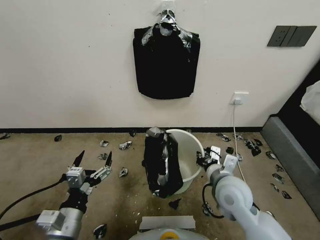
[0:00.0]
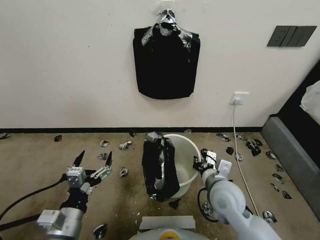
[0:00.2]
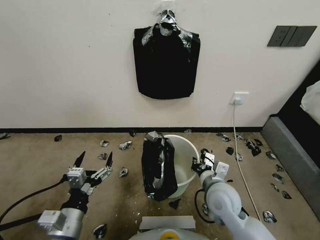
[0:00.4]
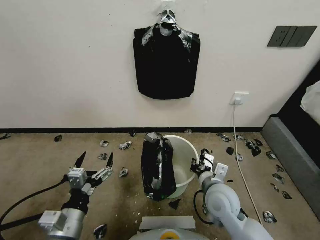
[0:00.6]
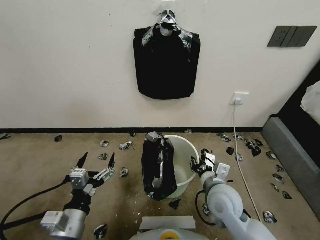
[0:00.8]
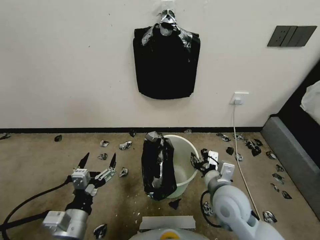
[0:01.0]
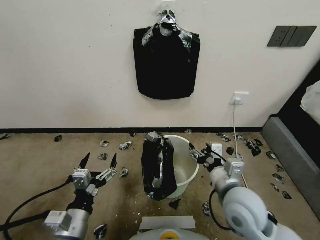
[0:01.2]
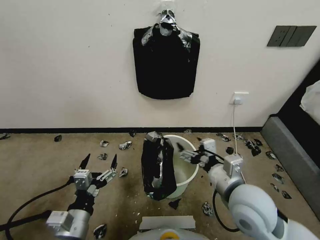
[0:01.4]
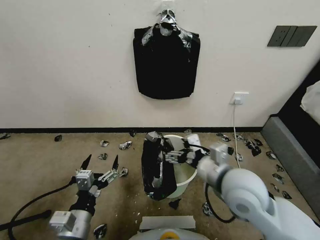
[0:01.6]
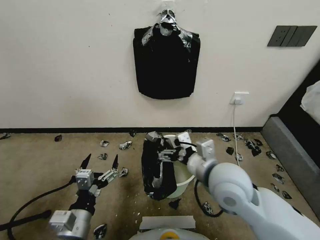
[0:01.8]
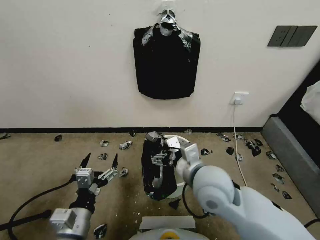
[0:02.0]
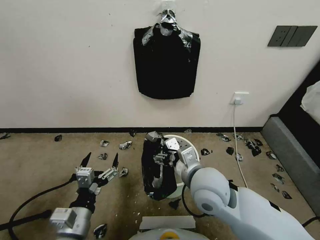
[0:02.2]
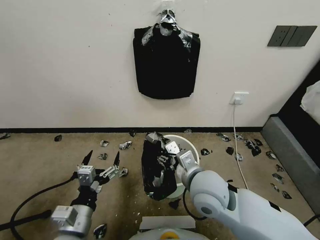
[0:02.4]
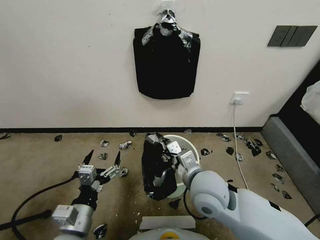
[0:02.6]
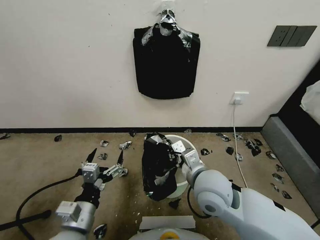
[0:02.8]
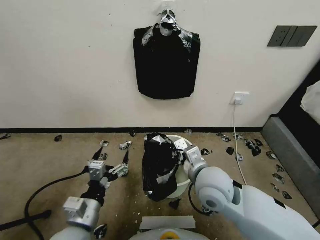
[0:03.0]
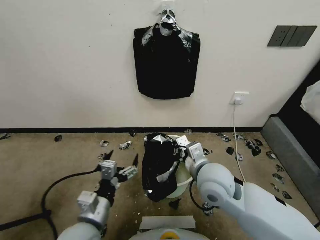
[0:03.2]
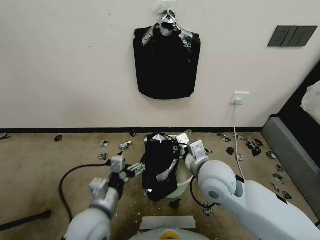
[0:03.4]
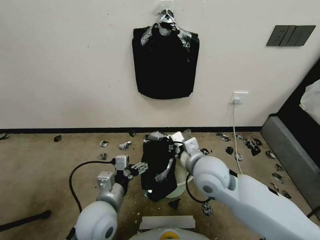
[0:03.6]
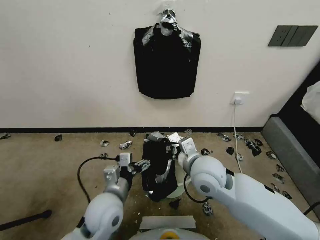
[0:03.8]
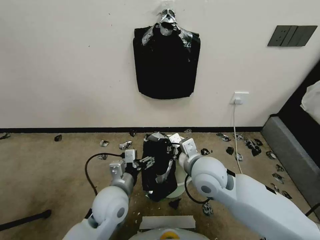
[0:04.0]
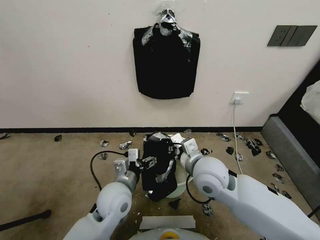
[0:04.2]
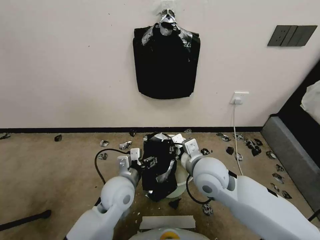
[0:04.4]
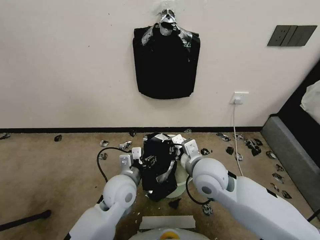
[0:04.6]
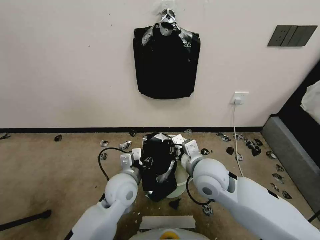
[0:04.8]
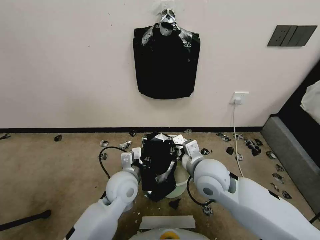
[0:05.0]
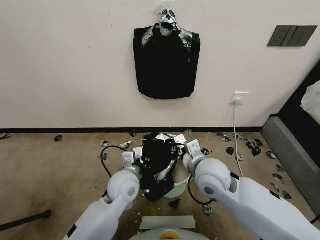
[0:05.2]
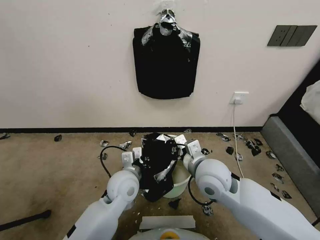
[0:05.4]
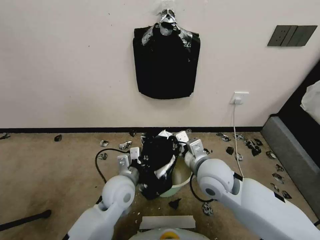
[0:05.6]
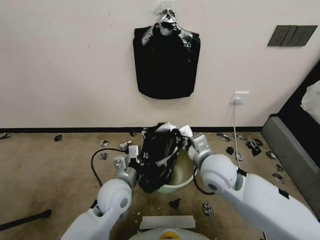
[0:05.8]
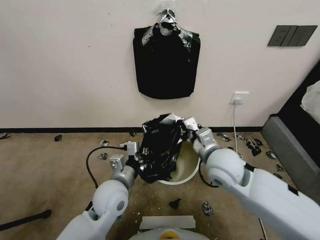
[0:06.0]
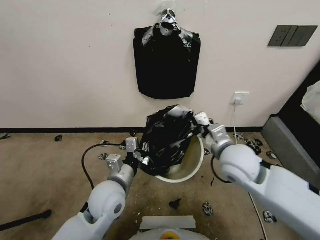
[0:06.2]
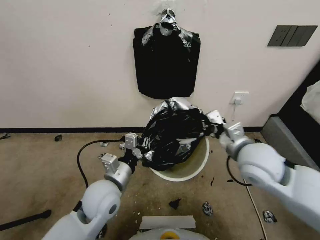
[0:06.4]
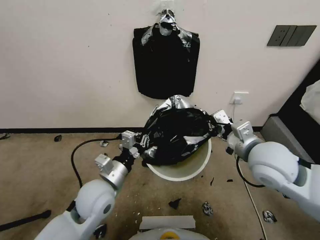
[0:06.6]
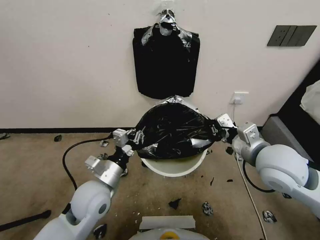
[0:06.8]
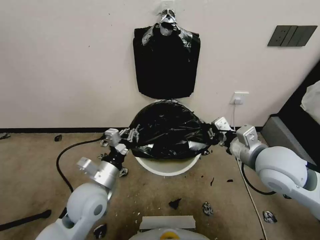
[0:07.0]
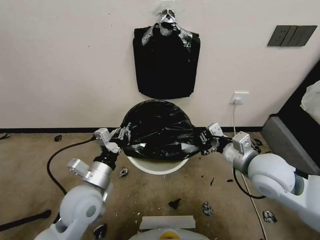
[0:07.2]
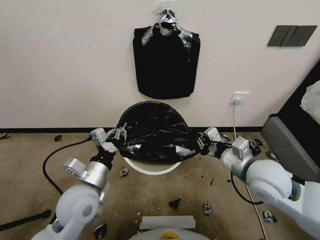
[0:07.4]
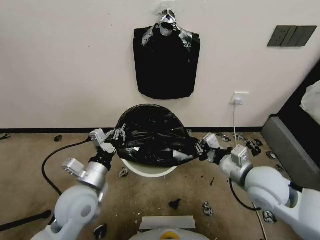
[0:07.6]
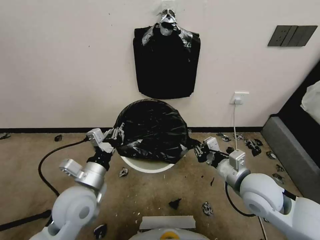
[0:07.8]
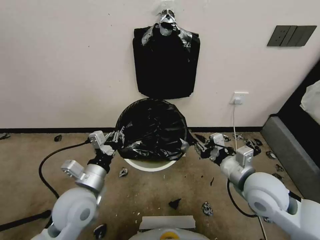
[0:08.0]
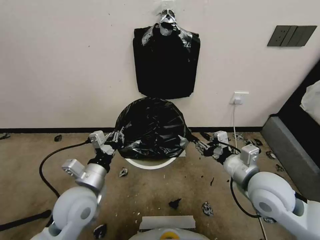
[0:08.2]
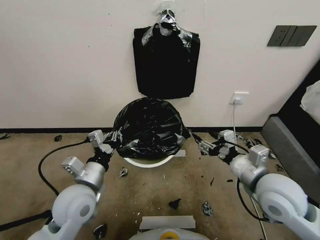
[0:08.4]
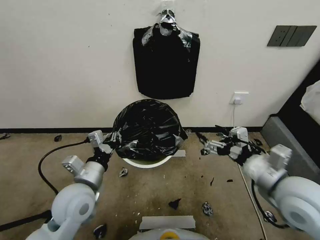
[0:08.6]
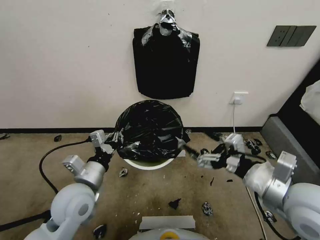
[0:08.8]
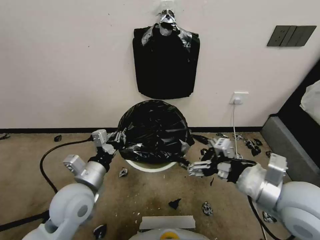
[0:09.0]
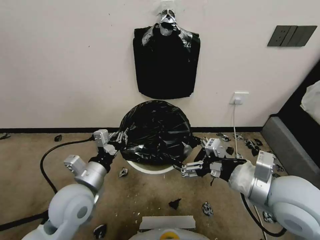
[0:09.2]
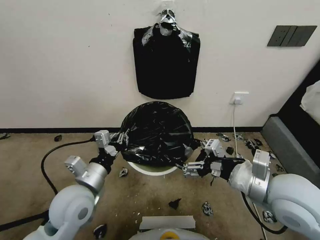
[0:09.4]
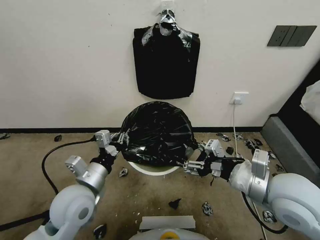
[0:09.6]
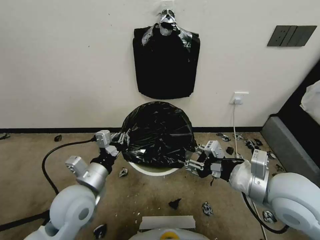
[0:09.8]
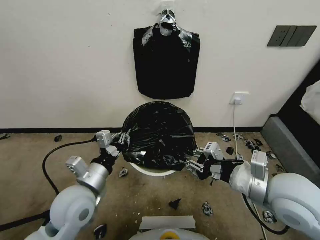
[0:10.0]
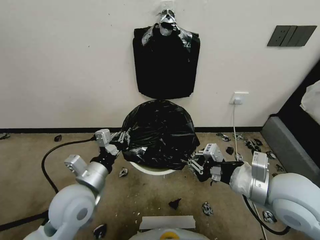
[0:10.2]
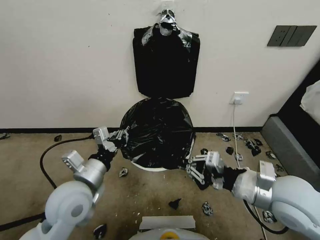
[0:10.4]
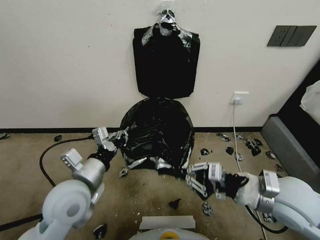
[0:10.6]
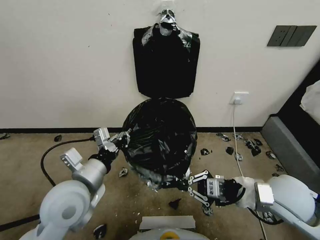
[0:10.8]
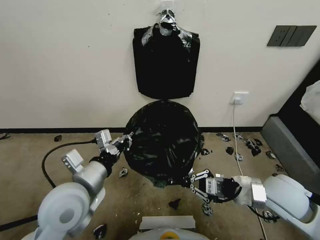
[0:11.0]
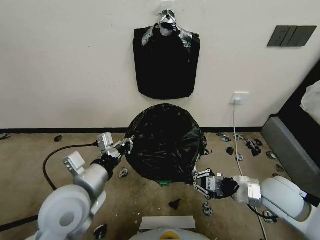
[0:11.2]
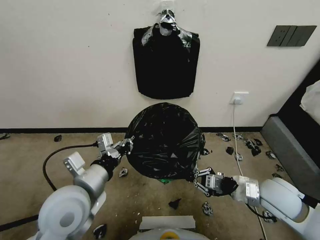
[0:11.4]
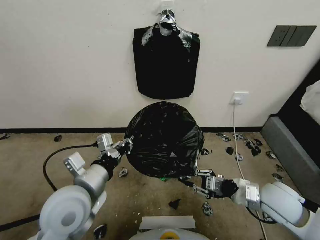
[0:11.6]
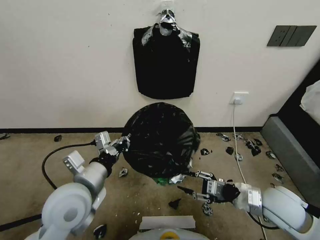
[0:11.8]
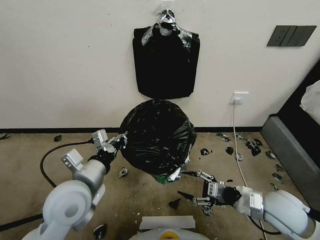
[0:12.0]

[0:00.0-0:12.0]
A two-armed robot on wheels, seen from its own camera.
Task of the whole recording: Place a trash bag onto the trash bin.
0:00.0 to 0:01.6: The right gripper moves upward, about 10 cm, and opens.
0:01.6 to 0:03.0: The right gripper heads to the left, covering roughly 5 cm, and closes.
0:03.0 to 0:04.4: The left gripper shifts approximately 15 cm forward and to the right.
0:04.4 to 0:06.0: The left gripper closes.
0:06.0 to 0:07.6: The right gripper goes roughly 10 cm to the right. The left gripper heads to the left, covering about 5 cm.
0:07.6 to 0:09.0: The right gripper moves backward and upward, roughly 10 cm, and opens its fingers.
0:09.0 to 0:10.4: The right gripper closes up.
0:10.4 to 0:12.0: The right gripper shifts roughly 15 cm downward and to the right, and opens.

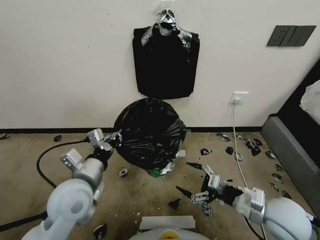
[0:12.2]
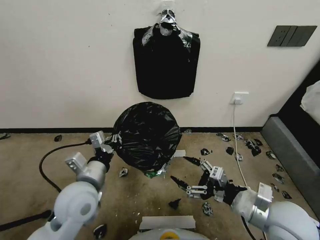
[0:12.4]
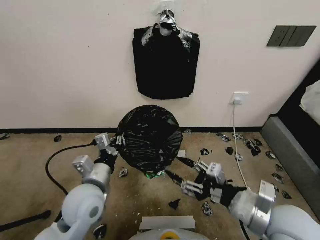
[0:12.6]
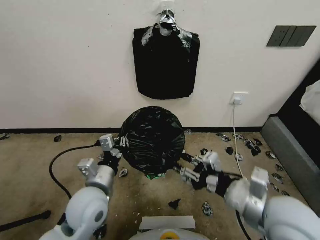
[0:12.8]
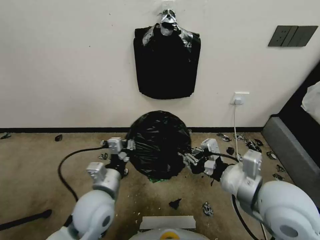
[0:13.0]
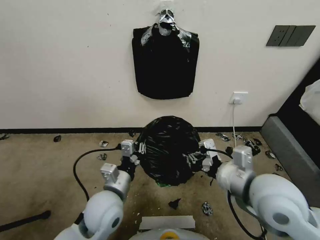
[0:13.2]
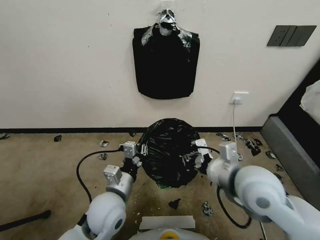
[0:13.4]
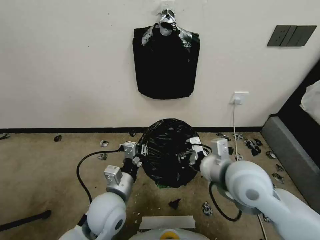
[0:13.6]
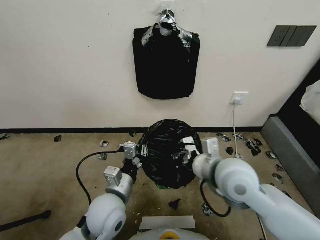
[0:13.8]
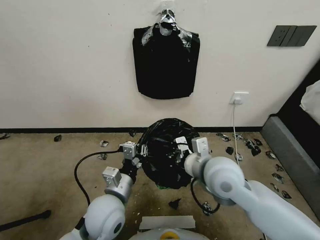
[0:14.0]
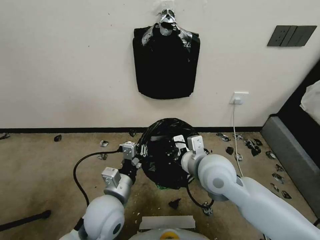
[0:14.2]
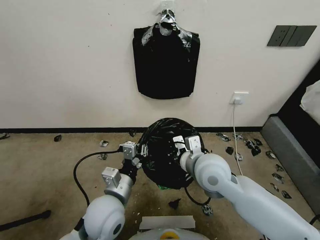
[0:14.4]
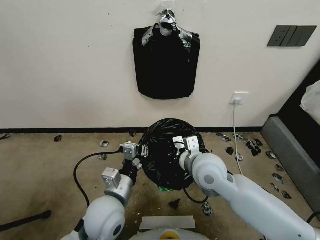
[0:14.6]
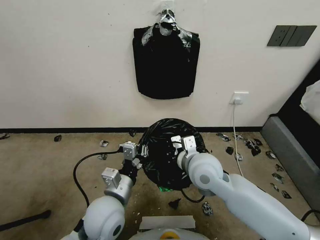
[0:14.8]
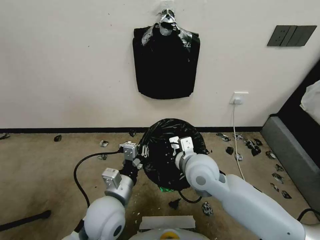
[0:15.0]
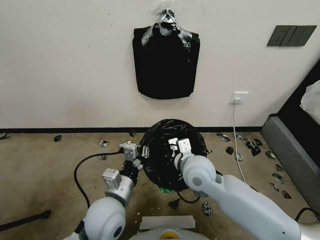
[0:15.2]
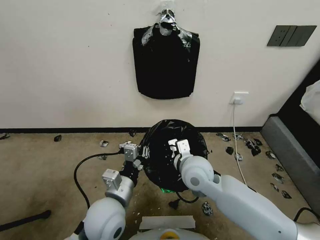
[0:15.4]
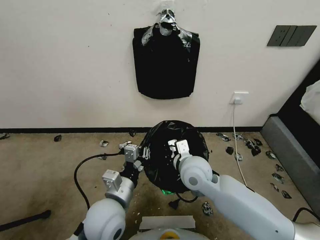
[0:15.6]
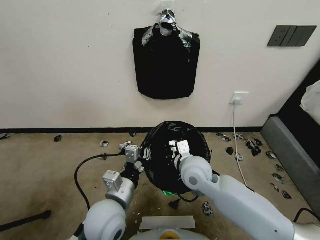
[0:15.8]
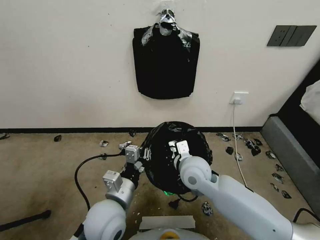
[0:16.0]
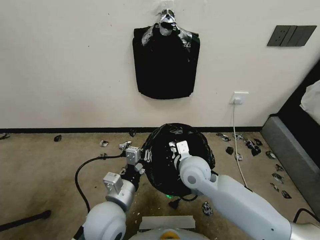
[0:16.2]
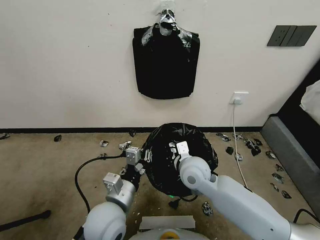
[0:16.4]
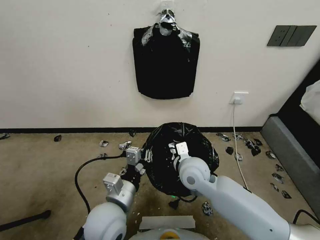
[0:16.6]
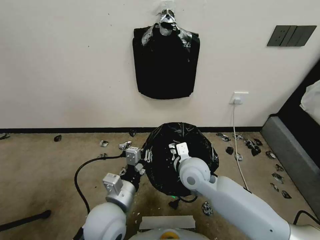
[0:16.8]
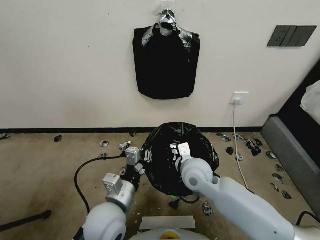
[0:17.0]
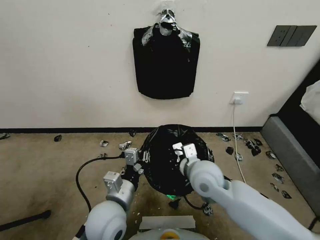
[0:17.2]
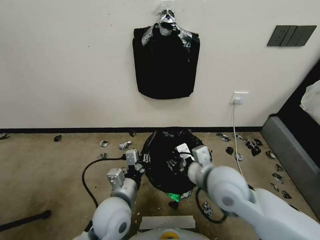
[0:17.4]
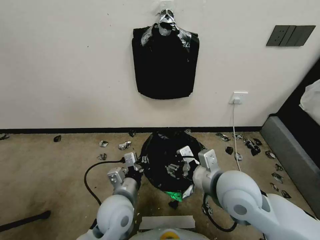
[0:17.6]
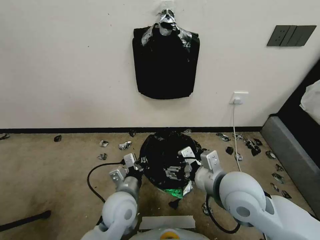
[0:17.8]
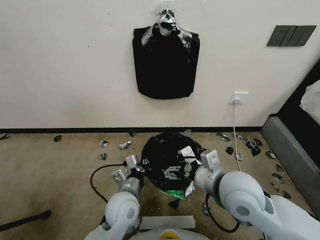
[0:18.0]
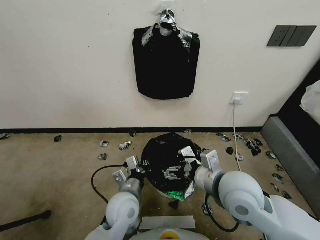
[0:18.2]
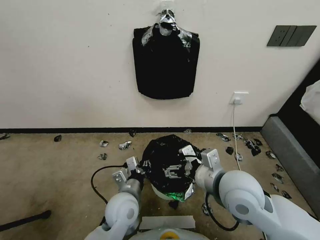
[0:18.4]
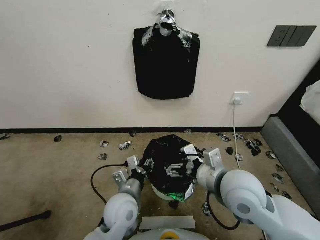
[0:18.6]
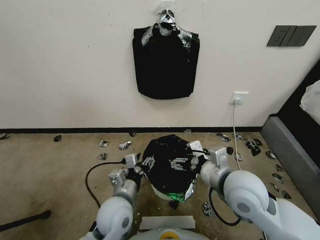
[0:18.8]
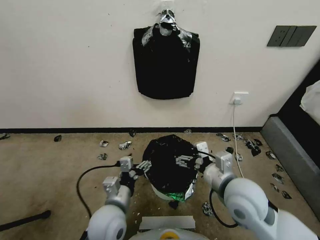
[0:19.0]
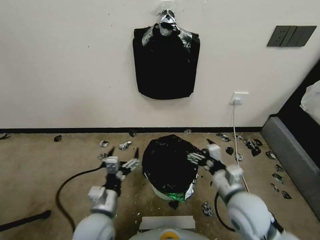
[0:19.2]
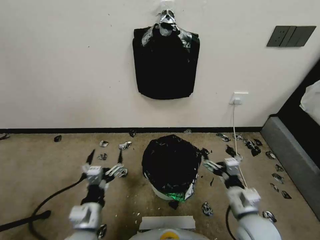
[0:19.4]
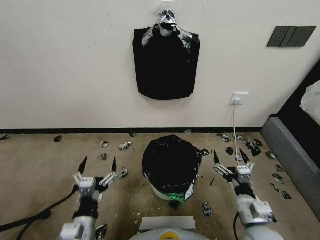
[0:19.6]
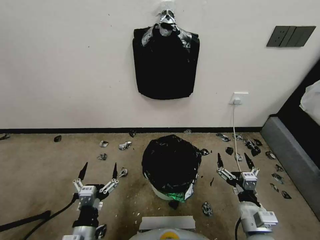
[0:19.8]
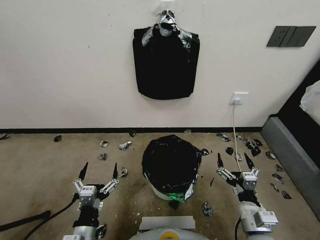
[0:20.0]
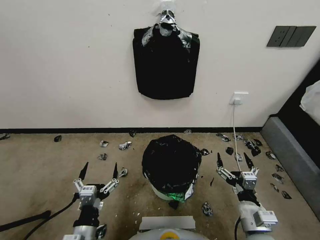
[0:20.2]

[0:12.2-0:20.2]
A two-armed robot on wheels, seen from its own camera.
Task of the whole recording: Place a trash bag onto the trash bin.
0:12.2 to 0:13.8: The right gripper moves upward and to the left, about 15 cm, and closes. The left gripper shifts roughly 10 cm downward and to the right.
0:13.8 to 0:15.4: The right gripper heads to the left, downward and forward, covering roughly 15 cm.
0:15.4 to 0:17.0: There are only small adjustments of the grippers.
0:17.0 to 0:18.6: The left gripper moves downward, about 5 cm, and opens its fingers; the right gripper goes some 15 cm upward, backward and to the right, and opens up.
0:18.6 to 0:20.2: The left gripper is displaced backward and to the left by about 15 cm, and opens its fingers; the right gripper moves downward, backward and to the right, approximately 20 cm.
